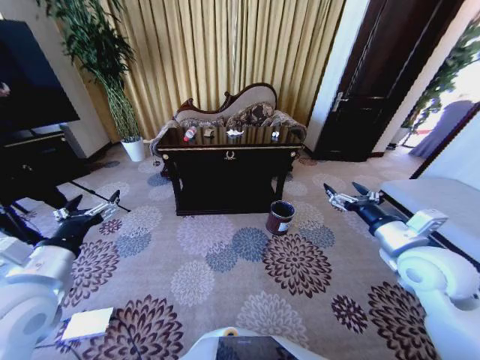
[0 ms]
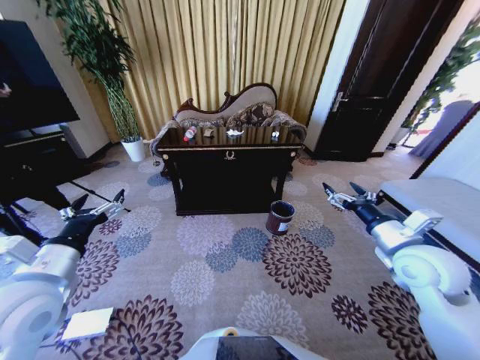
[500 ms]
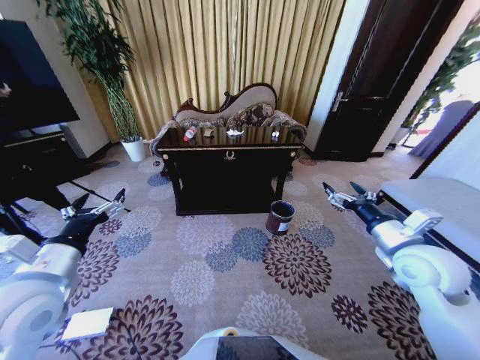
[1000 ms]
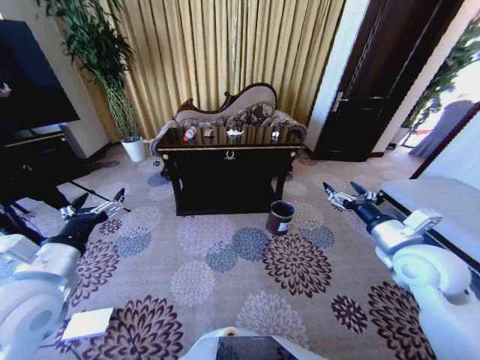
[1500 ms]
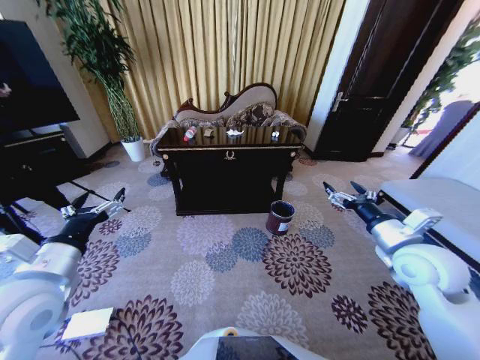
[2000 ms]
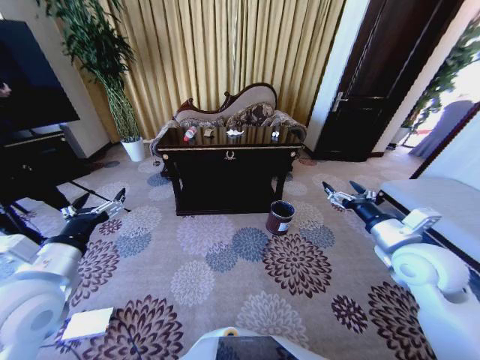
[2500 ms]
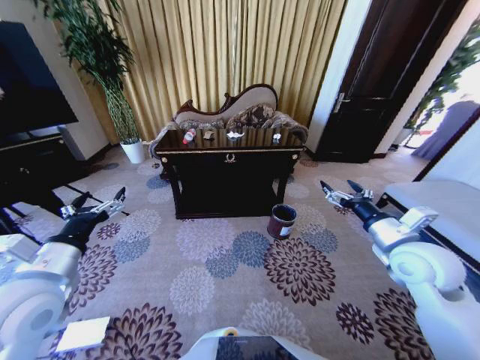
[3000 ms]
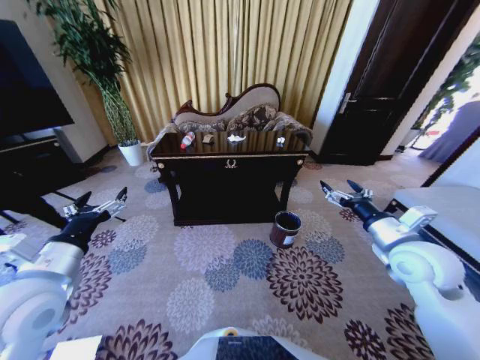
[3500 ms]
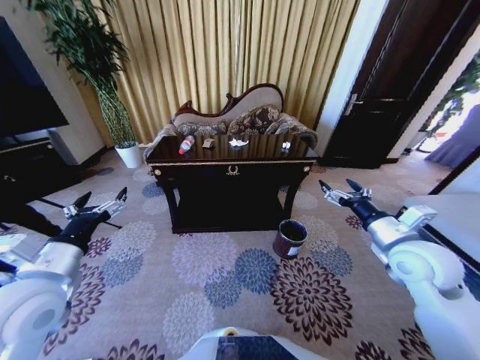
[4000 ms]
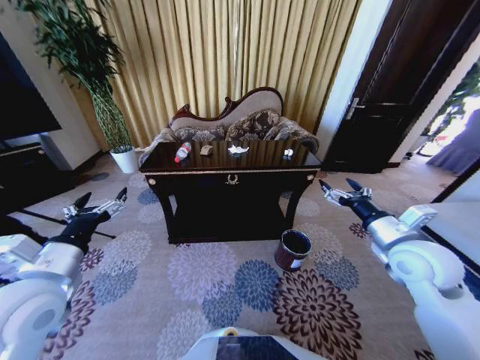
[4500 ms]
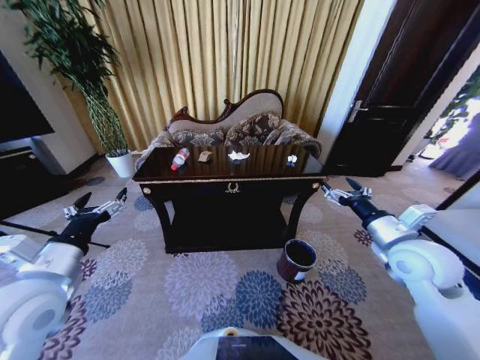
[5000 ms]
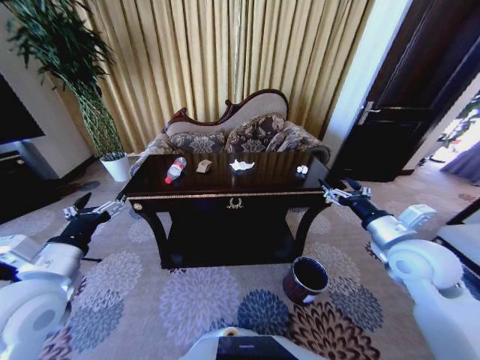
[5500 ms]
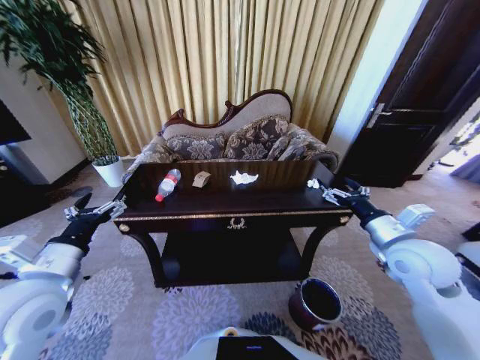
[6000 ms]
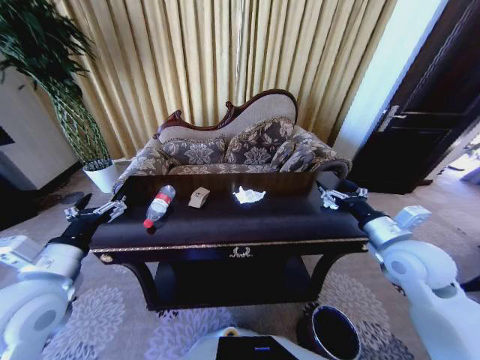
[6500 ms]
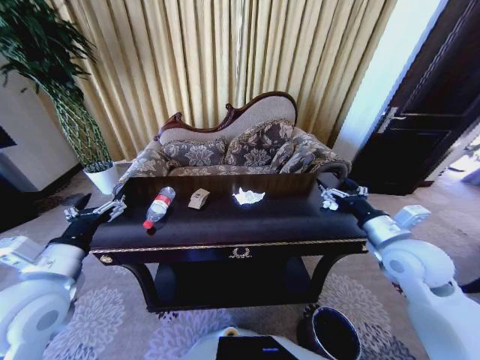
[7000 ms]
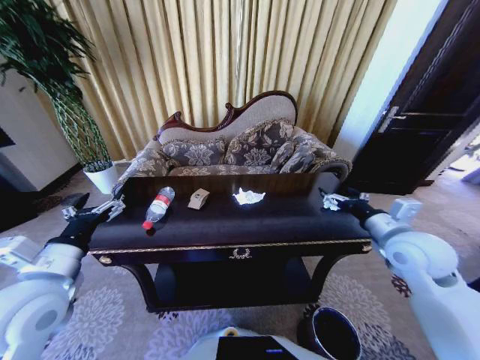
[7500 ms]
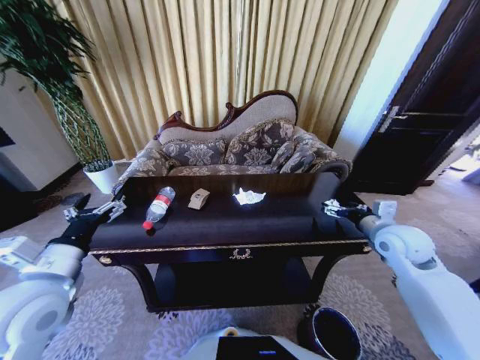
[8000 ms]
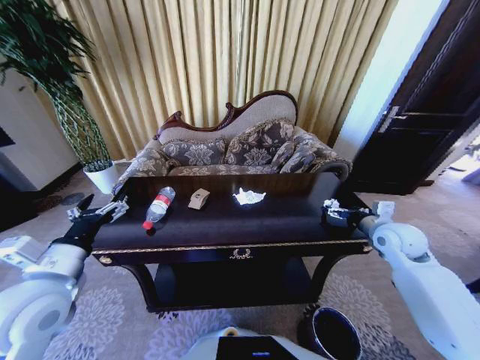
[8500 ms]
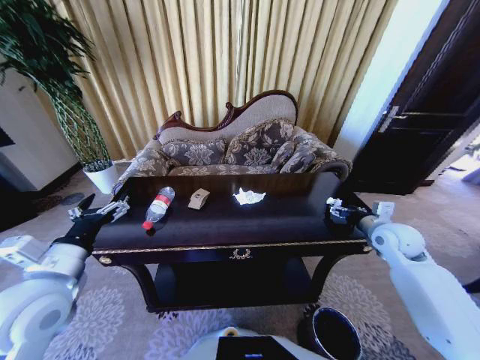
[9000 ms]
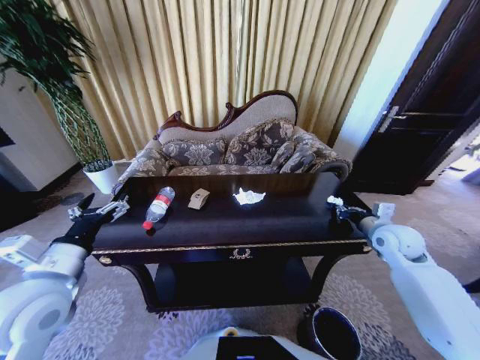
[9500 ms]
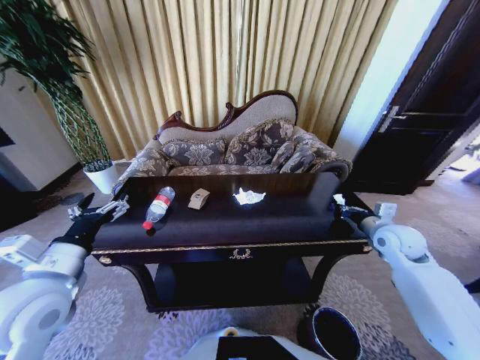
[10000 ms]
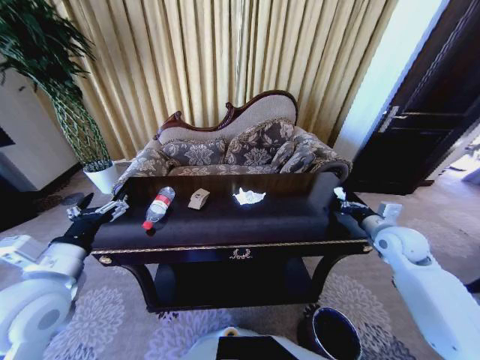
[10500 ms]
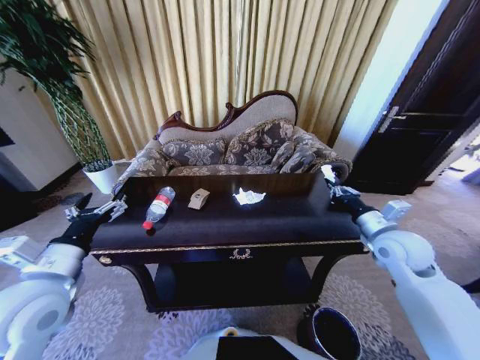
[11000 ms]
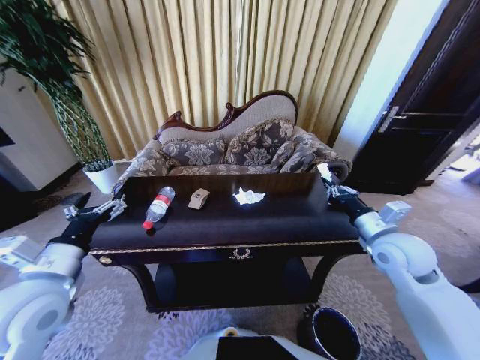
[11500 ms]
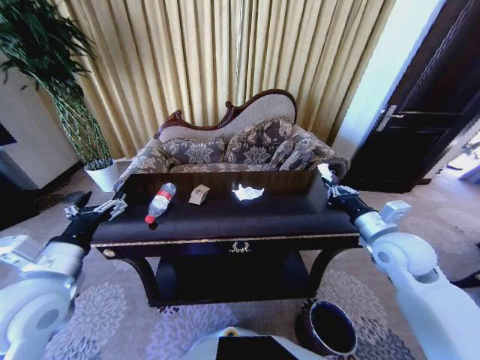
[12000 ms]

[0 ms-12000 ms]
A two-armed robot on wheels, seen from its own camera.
Task of the whole recording: Move to the front of the table and place the trash on the table into the trash bin.
6000 ms to 8000 ms: The right gripper goes some 5 cm forward.
8000 ms to 10000 ms: The right gripper moves approximately 5 cm, and closes.
10000 ms to 12000 ms: The right gripper travels to the left and backward by about 10 cm.

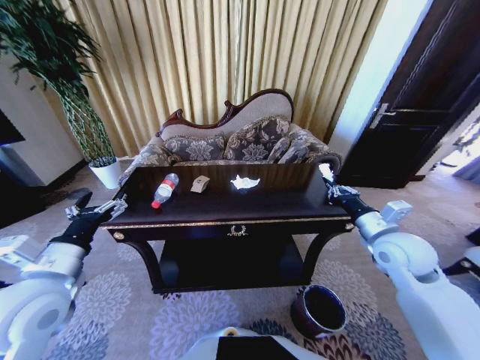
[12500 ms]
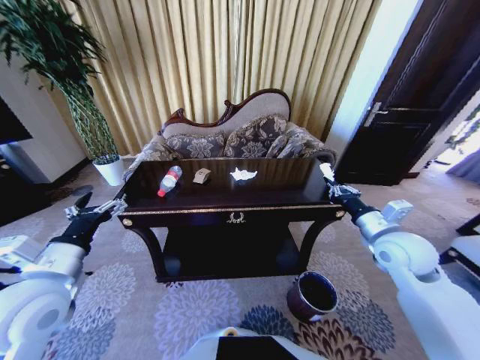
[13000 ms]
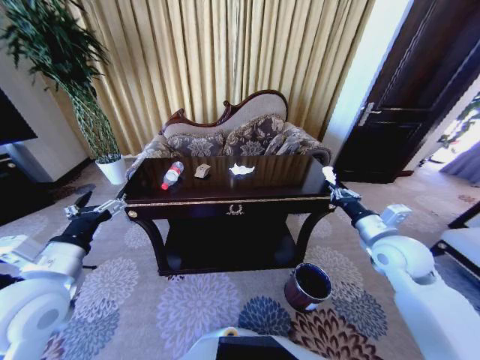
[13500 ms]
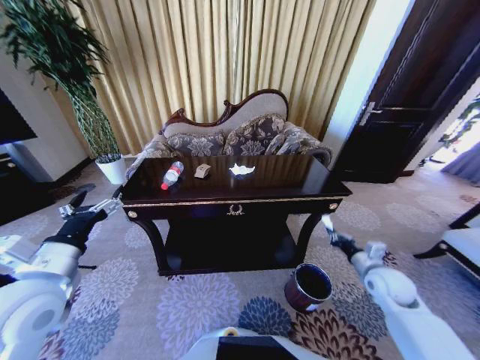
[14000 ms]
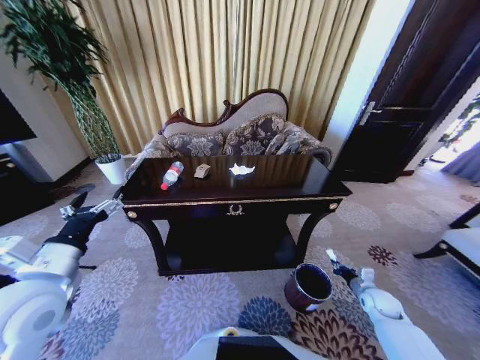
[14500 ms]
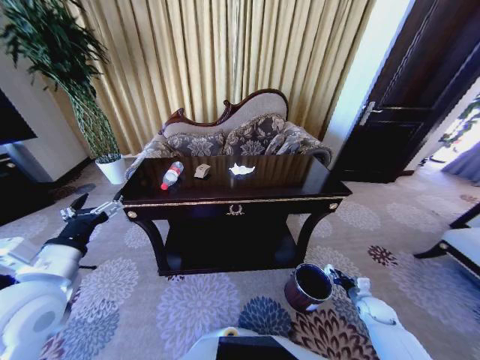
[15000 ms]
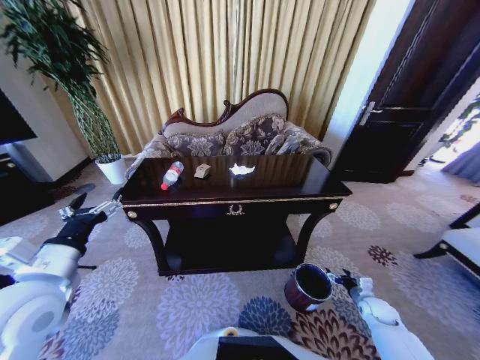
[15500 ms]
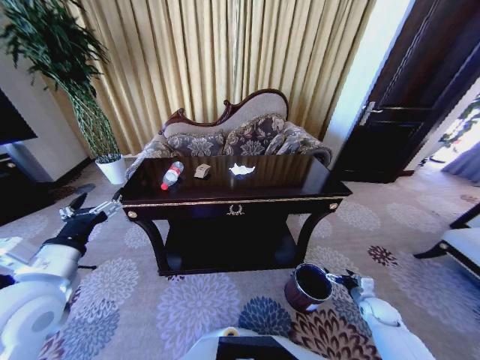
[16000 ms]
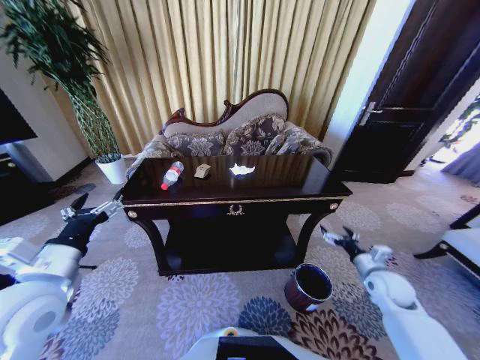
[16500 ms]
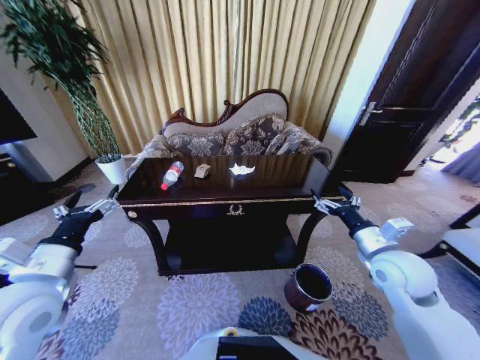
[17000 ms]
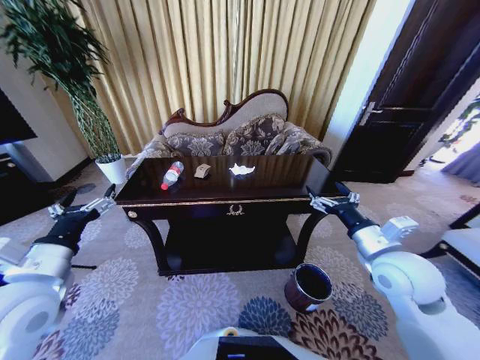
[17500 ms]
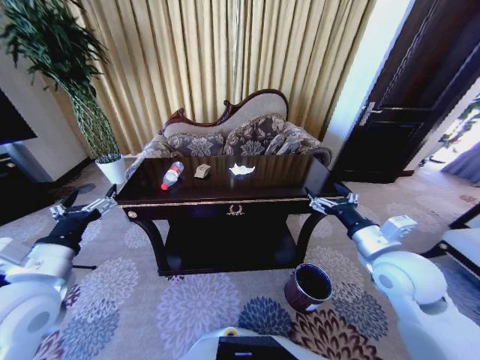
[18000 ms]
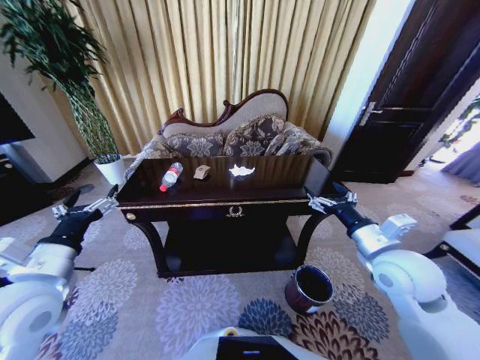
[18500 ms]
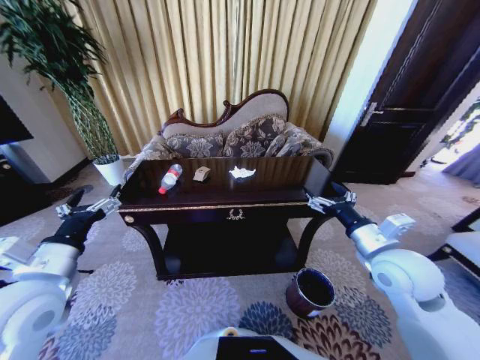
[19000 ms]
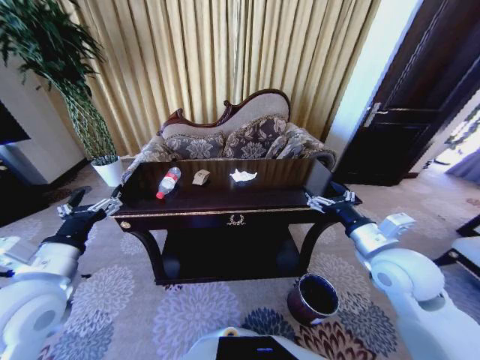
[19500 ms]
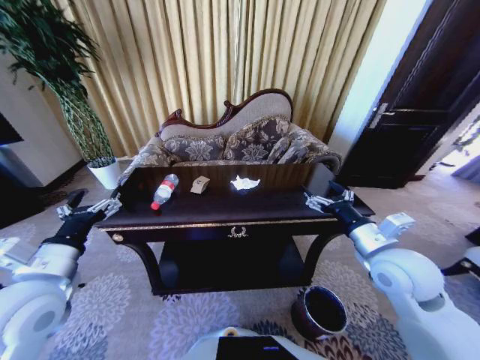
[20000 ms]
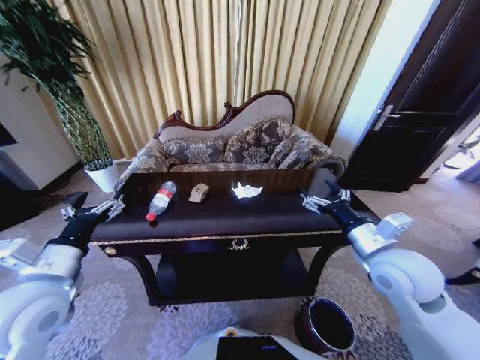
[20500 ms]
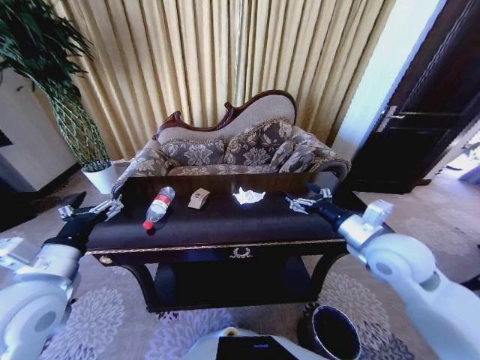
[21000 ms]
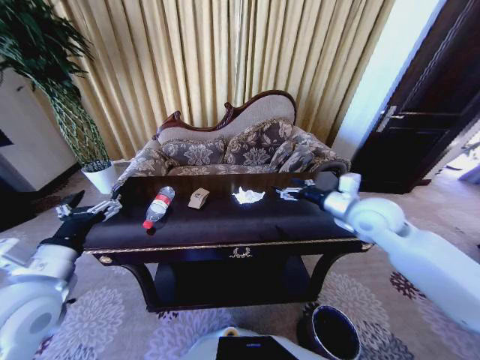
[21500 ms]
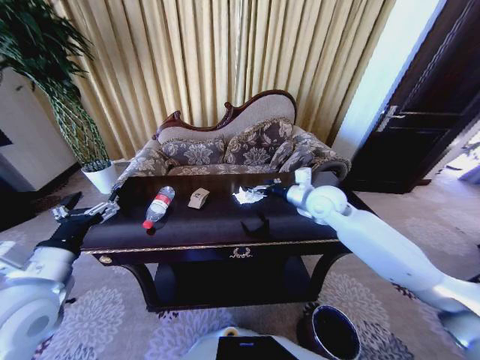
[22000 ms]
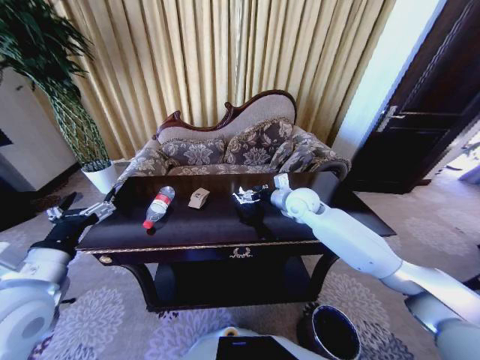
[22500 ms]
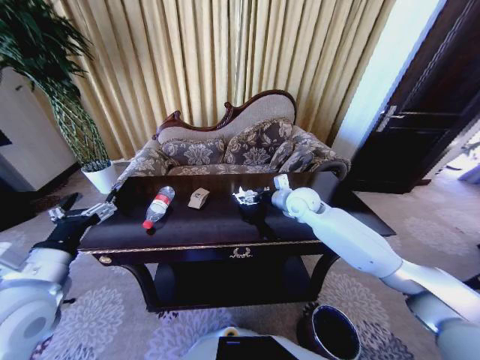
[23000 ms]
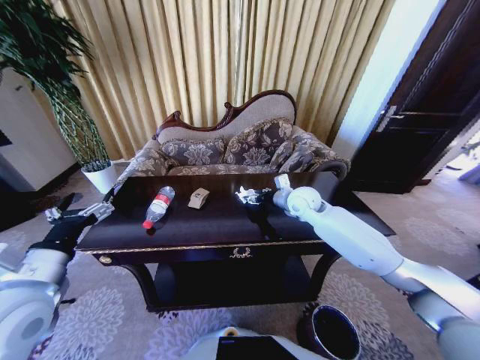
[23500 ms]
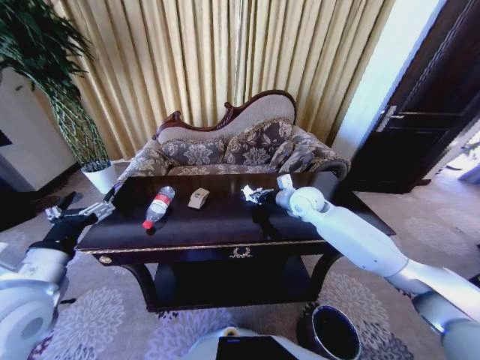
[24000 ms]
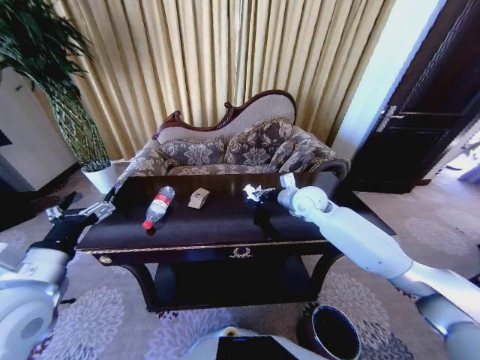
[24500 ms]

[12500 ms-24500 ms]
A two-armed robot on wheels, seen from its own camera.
Task of the whole recording: Move to the front of the table and place the trash on the table into the trash bin.
12500 ms to 14500 ms: The right gripper goes about 30 cm downward and to the right.
14500 ms to 16500 ms: The right gripper travels upward by roughly 15 cm, and opens.
16500 ms to 18500 ms: The right gripper goes some 20 cm upward and to the left.
20500 ms to 22500 ms: The right gripper heads forward and to the left, covering about 25 cm.
22500 ms to 24500 ms: The right gripper closes.

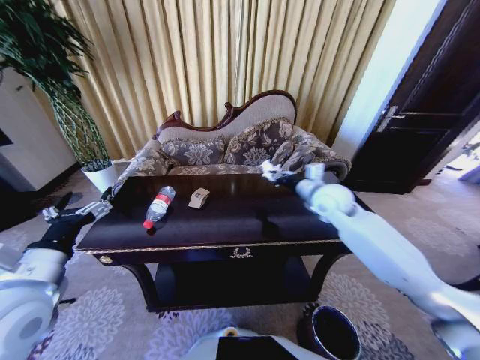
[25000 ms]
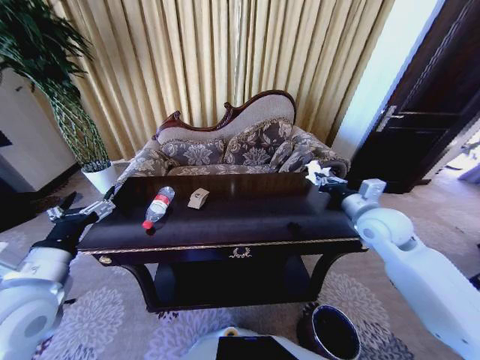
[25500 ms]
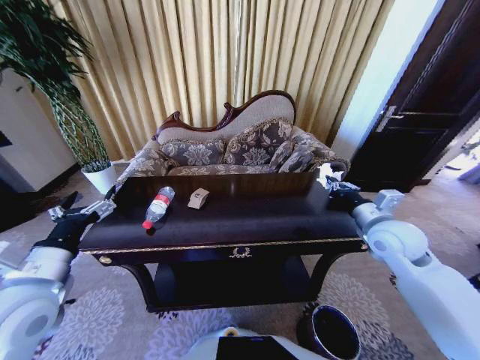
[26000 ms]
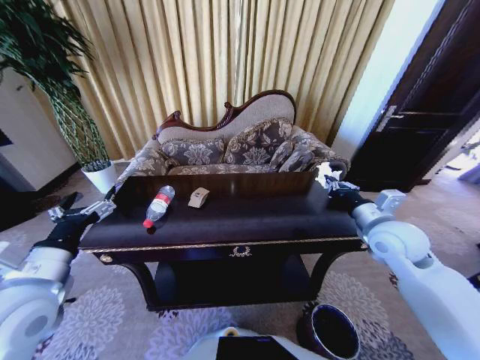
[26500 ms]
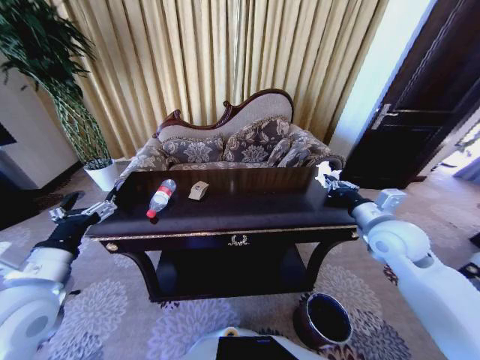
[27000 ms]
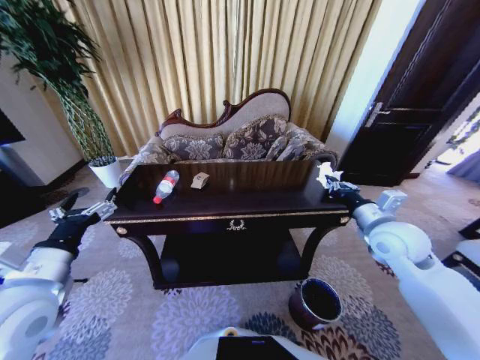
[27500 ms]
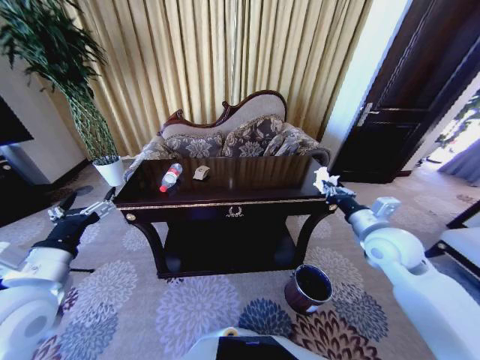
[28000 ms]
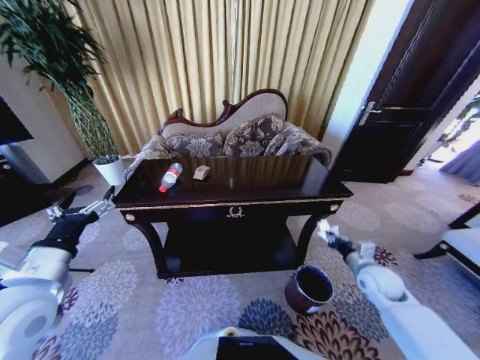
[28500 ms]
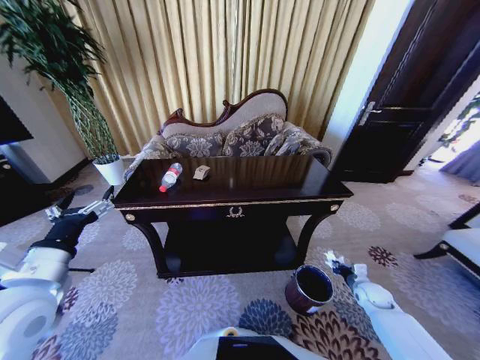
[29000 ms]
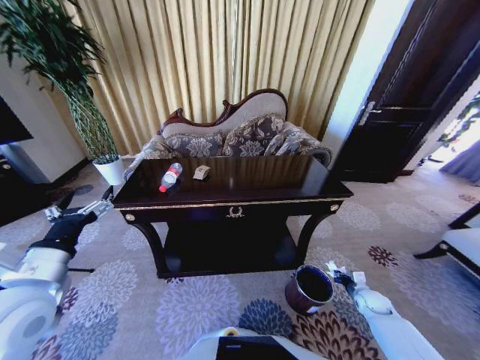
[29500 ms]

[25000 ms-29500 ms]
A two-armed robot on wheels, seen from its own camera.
Task of the whole recording: Move to the front of the table and place the trash on the table into the trash bin.
25000 ms to 27000 ms: The right gripper goes roughly 15 cm backward and to the right.
27000 ms to 29500 ms: The right gripper moves downward, some 35 cm.
